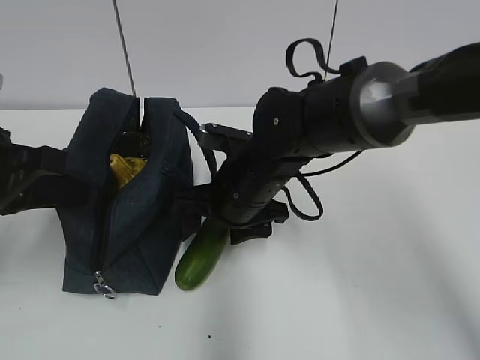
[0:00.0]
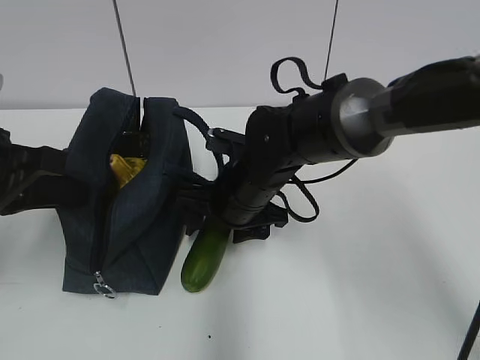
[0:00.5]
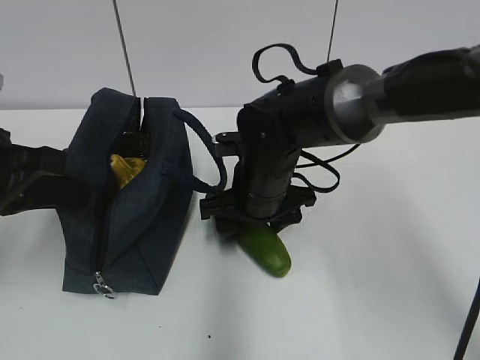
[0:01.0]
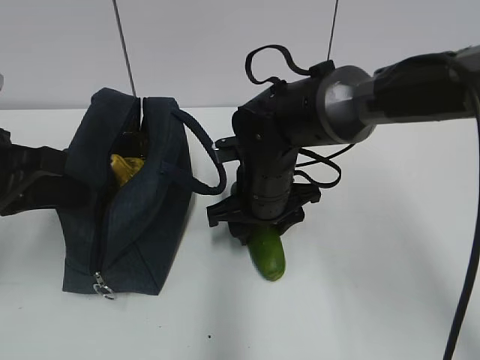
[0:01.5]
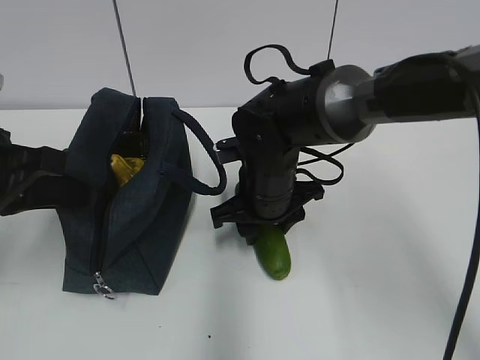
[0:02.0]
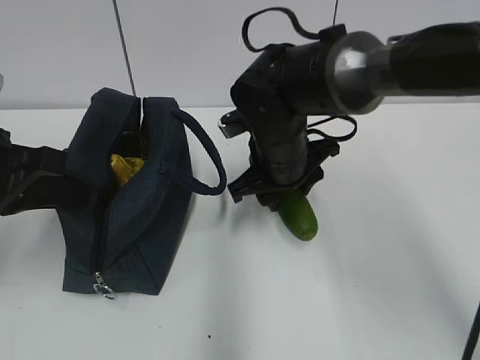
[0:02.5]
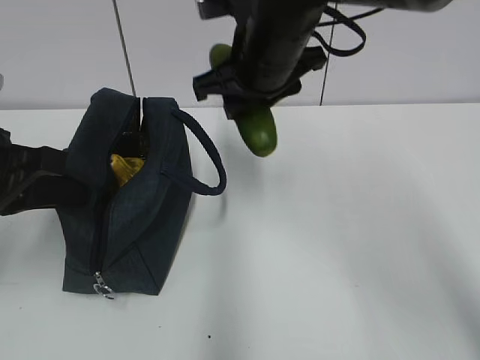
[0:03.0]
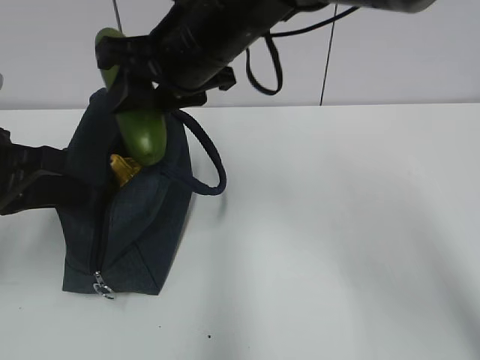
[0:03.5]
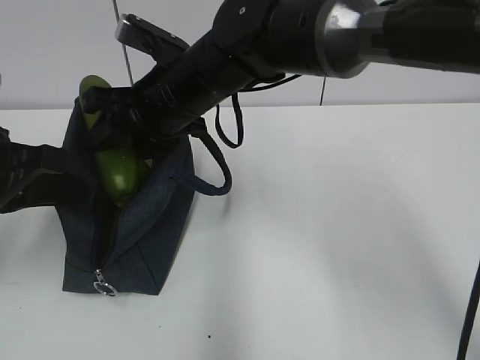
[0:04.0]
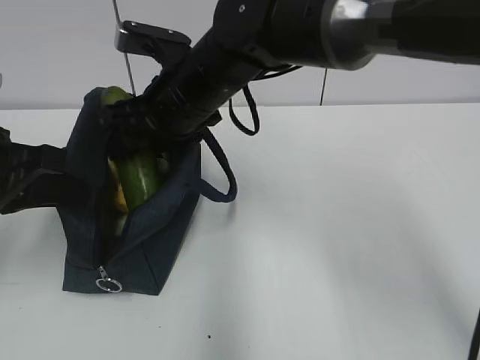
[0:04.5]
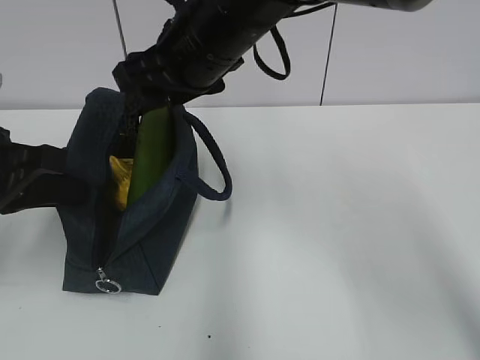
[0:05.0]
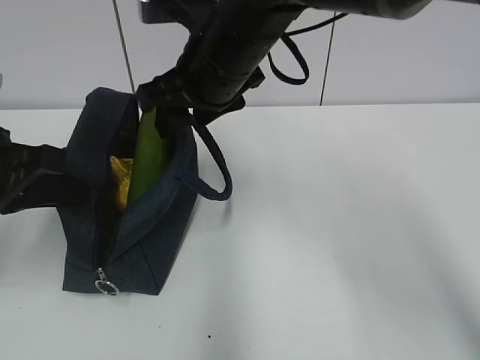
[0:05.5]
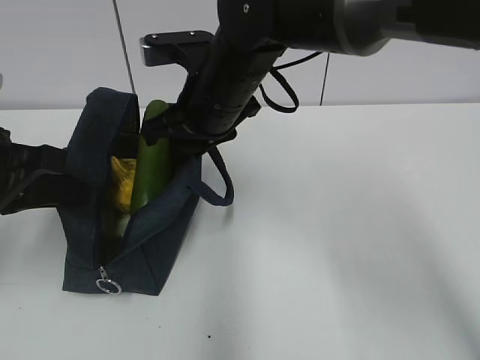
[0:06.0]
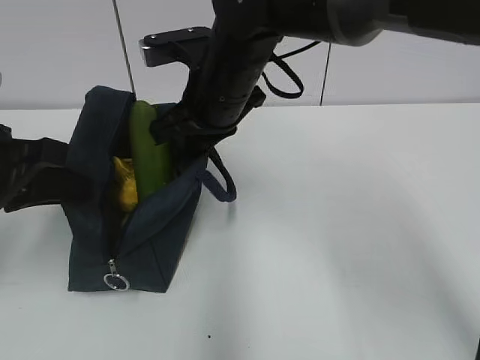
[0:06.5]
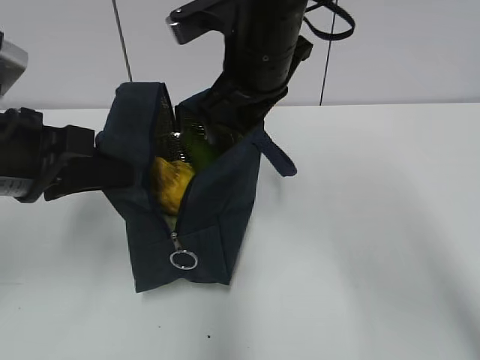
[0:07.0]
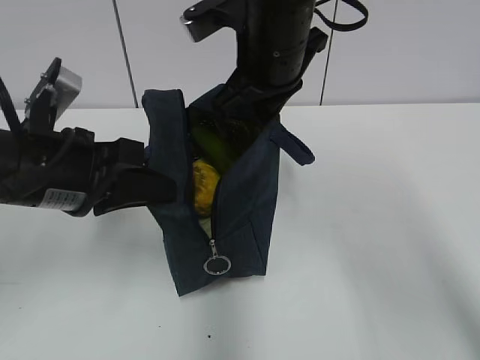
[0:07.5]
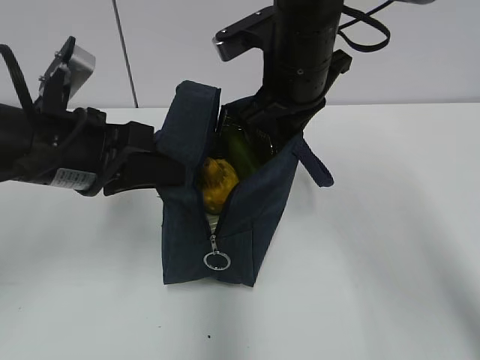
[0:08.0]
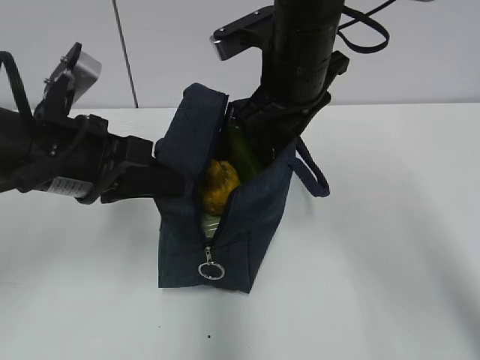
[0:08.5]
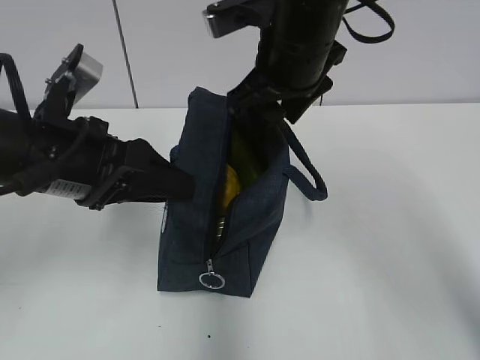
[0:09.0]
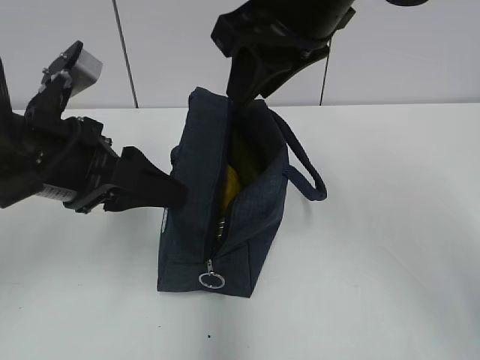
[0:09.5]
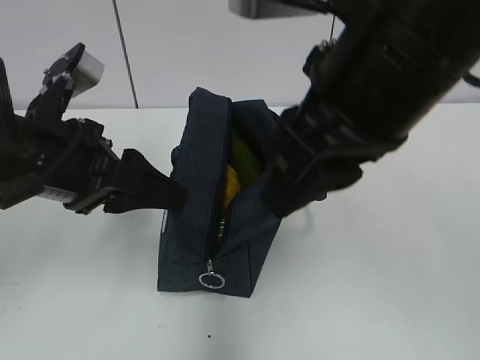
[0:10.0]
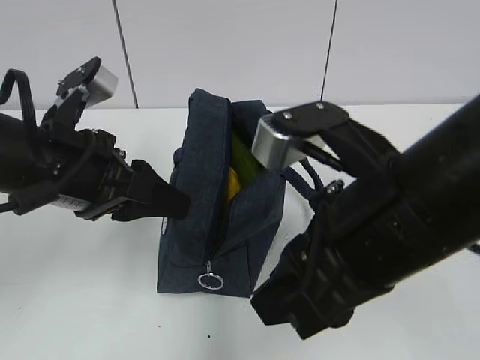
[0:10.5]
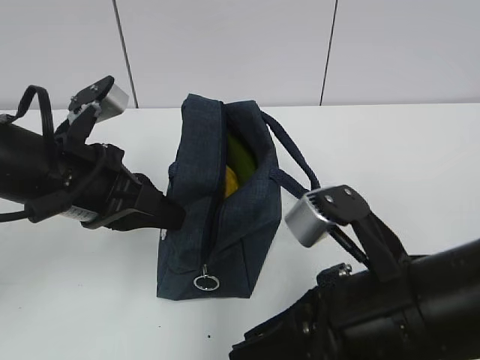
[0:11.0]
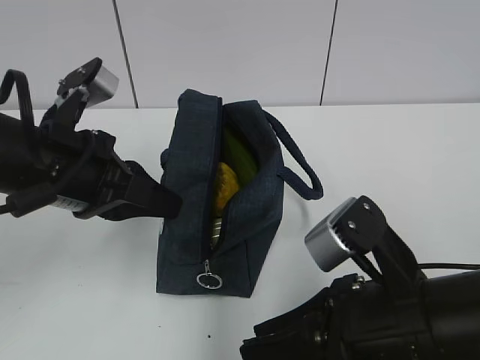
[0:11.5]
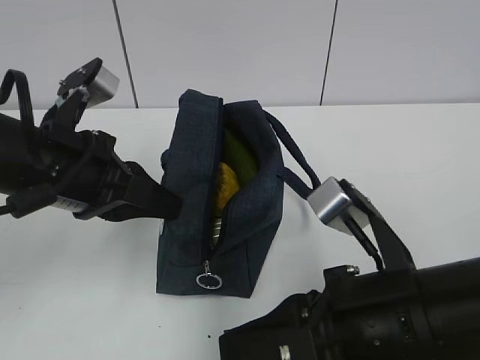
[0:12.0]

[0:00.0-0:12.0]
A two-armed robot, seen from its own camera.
Step, 0:00.0 to 0:02.0: Grab the cucumber with your right hand.
Step, 0:05.0 to 0:06.0: Grab the lunch bag with your right hand.
Step, 0:06.5 to 0:08.5: Move the lunch bag to the right.
0:00.0 to 0:02.0: The right gripper closes.
0:02.0 to 0:04.0: The right gripper shifts approximately 15 cm upward and to the left.
0:06.0 to 0:08.0: The grippers both shift to the right by roughly 5 cm. The right gripper closes up.
0:08.0 to 0:10.0: The right gripper goes roughly 15 cm backward and upward, and opens its fingers; the left gripper opens its fingers.
0:10.0 to 0:12.0: The left gripper closes its fingers; the right gripper goes about 15 cm downward and backward.

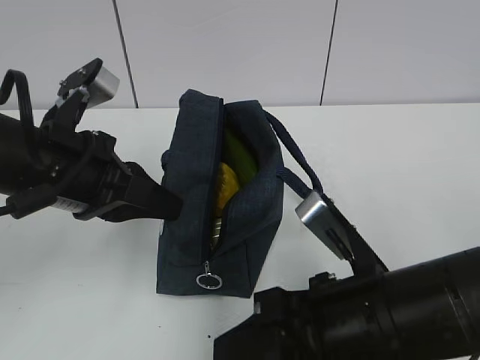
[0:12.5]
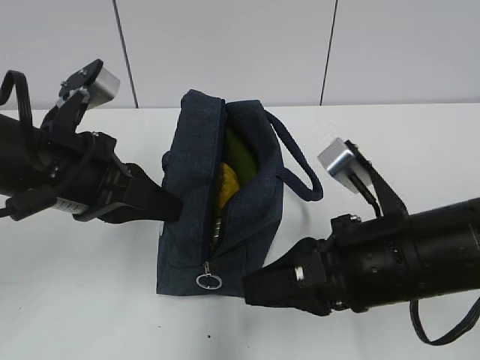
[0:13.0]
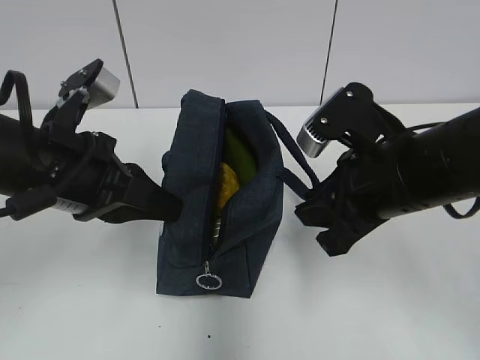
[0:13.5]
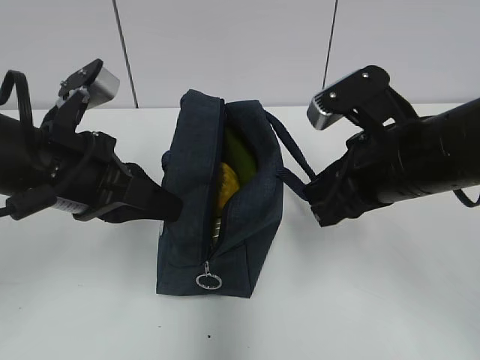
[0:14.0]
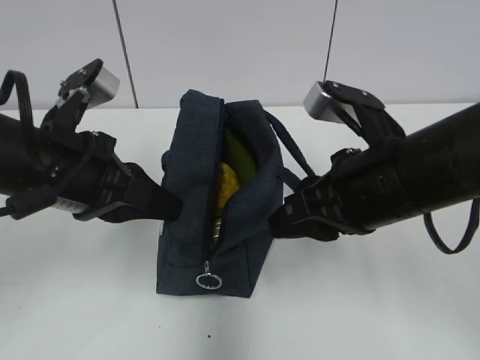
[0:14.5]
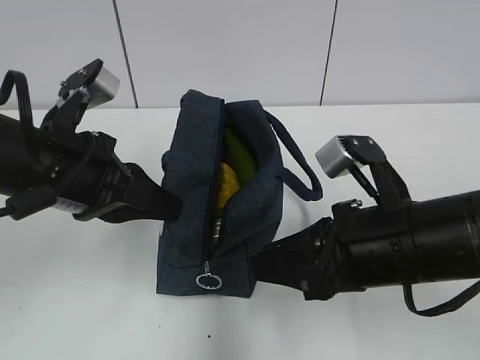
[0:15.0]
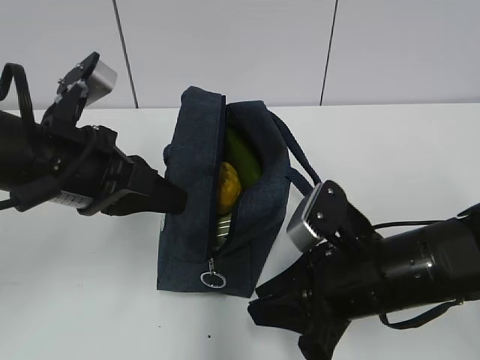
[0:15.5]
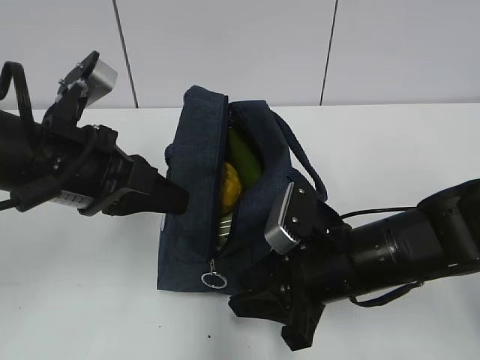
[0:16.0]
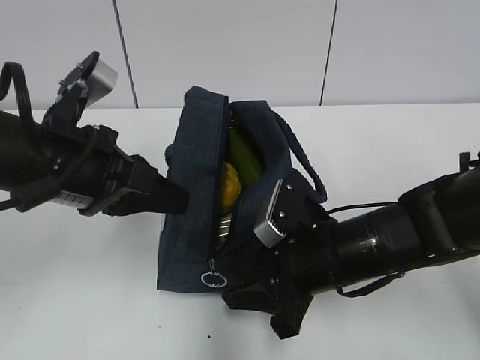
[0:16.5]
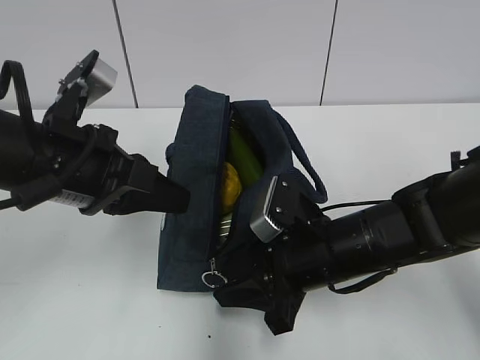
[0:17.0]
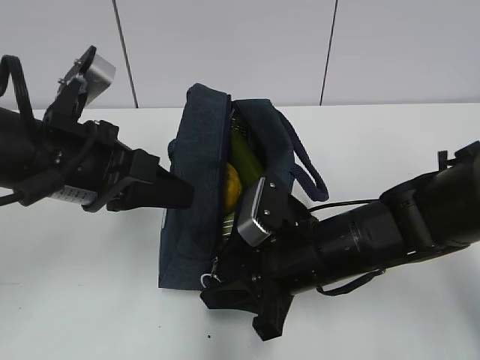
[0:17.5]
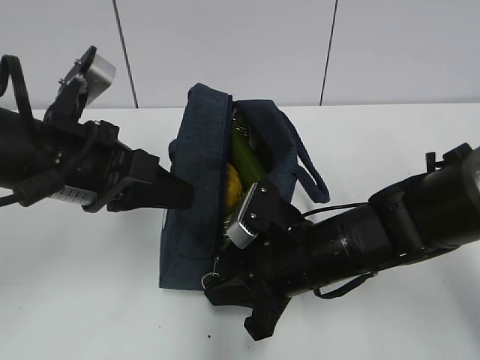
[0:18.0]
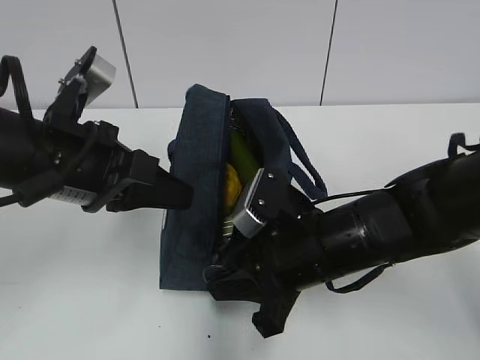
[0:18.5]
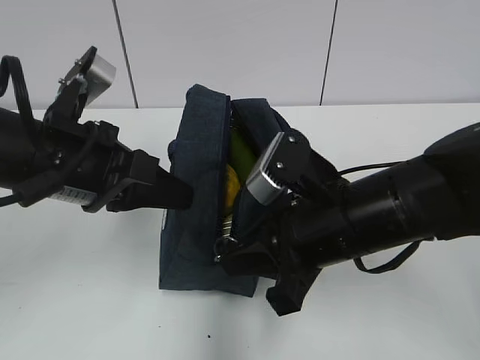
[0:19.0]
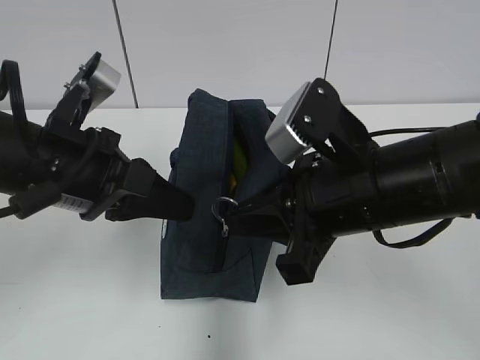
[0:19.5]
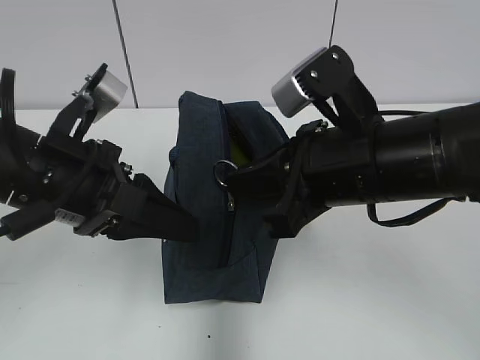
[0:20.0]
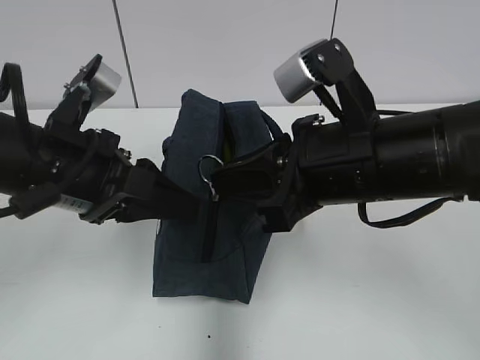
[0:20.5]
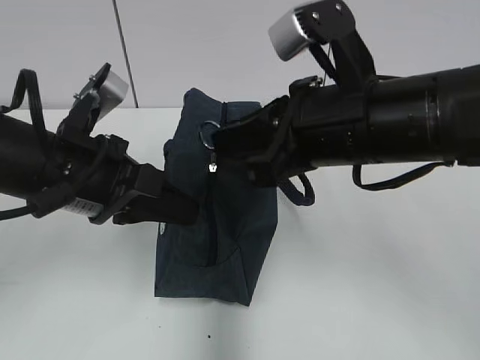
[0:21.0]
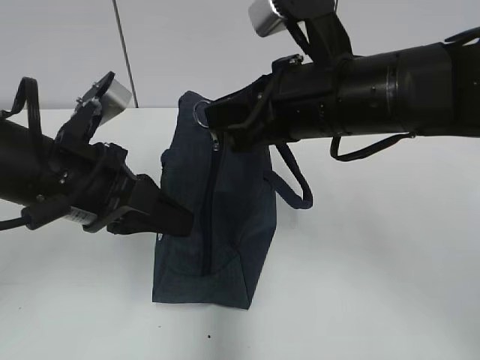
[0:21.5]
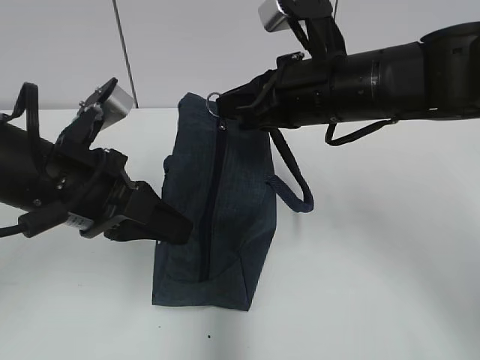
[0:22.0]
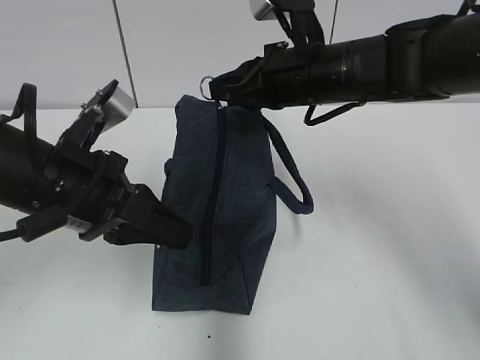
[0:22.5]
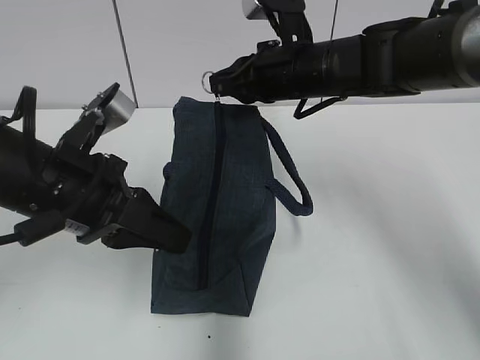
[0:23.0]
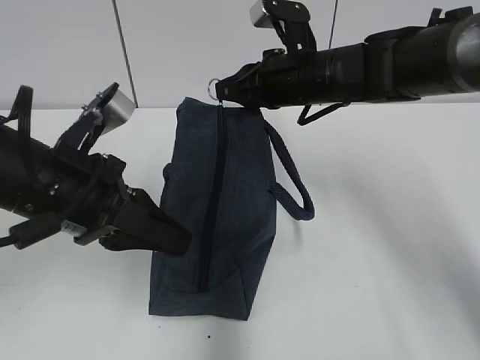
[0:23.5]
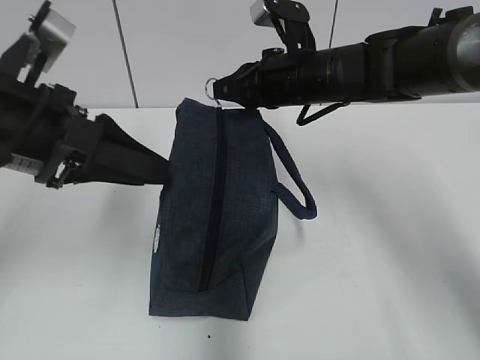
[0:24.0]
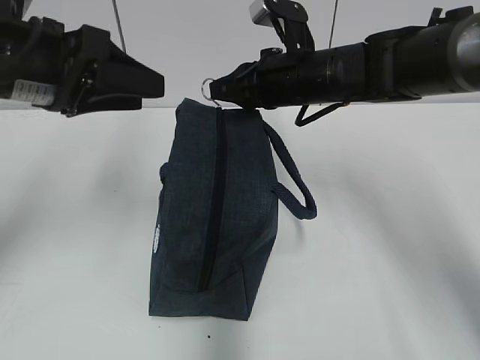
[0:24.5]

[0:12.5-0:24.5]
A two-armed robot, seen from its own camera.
0:12.5 to 0:14.5: The right gripper shifts approximately 10 cm forward.
0:14.5 to 0:16.5: The right gripper shifts about 10 cm downward.
0:16.5 to 0:18.5: The right gripper closes.
0:18.5 to 0:20.5: The right gripper moves upward, roughly 10 cm. Meanwhile the left gripper opens its fingers.
0:20.5 to 0:22.5: The right gripper moves forward, approximately 15 cm. Meanwhile the left gripper closes up.
0:22.5 to 0:24.5: The left gripper shifts roughly 10 cm upward, and opens its fingers.

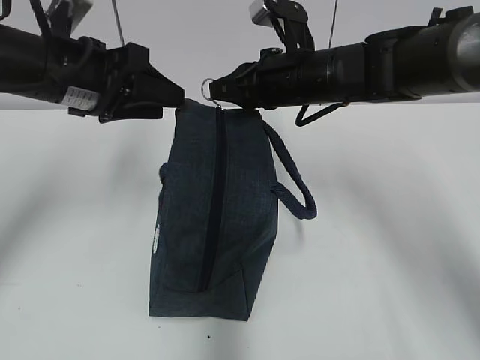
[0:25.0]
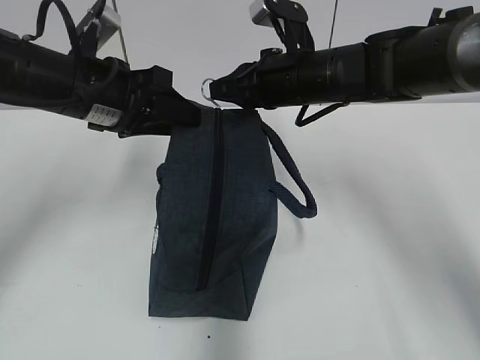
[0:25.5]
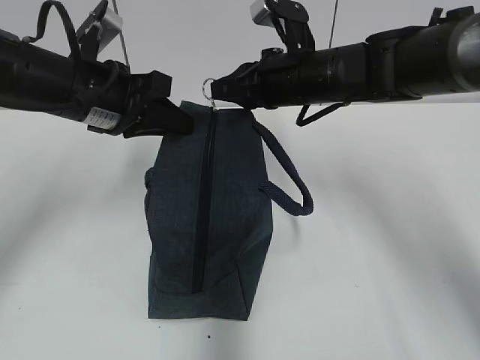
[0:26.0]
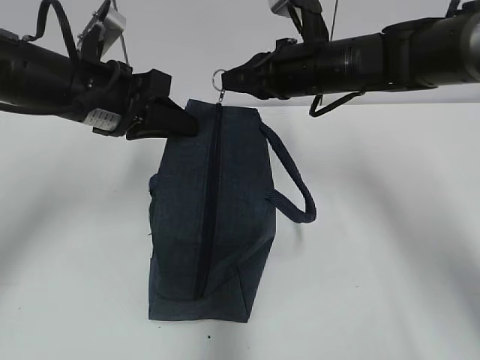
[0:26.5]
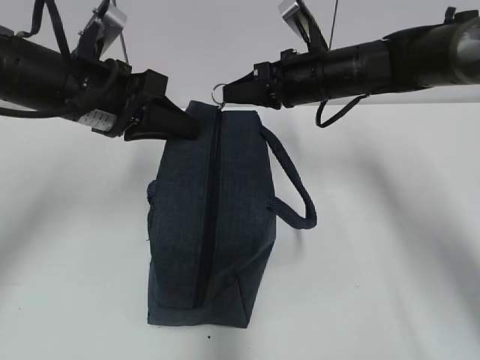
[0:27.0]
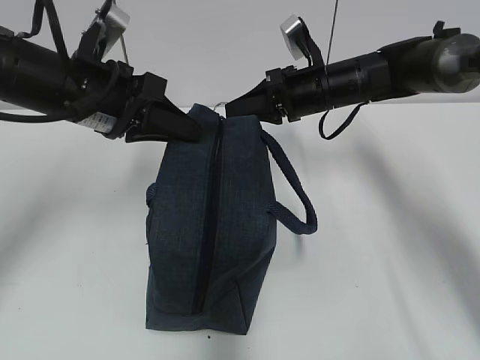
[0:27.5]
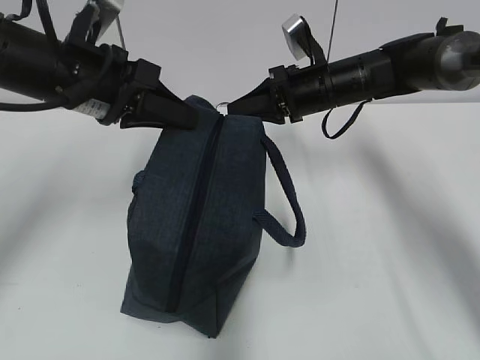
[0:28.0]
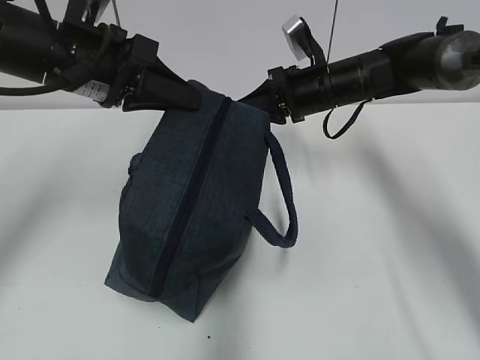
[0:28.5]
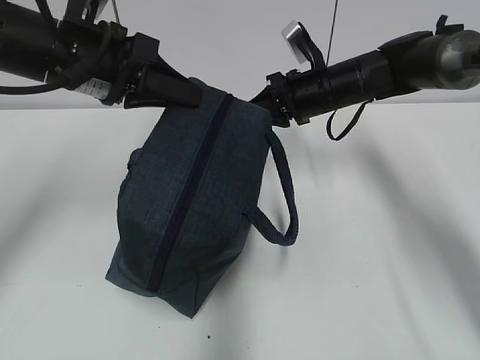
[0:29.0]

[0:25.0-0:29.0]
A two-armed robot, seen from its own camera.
0:25.0 to 0:27.0: The left gripper closes up.
